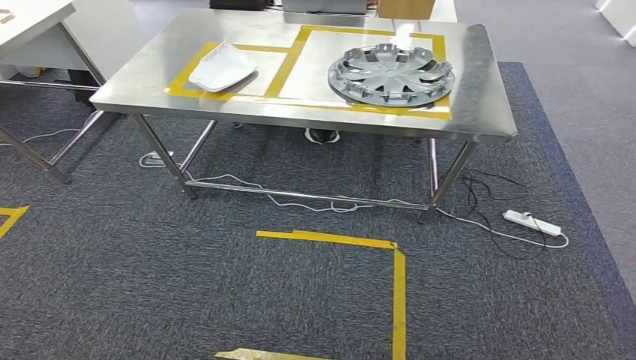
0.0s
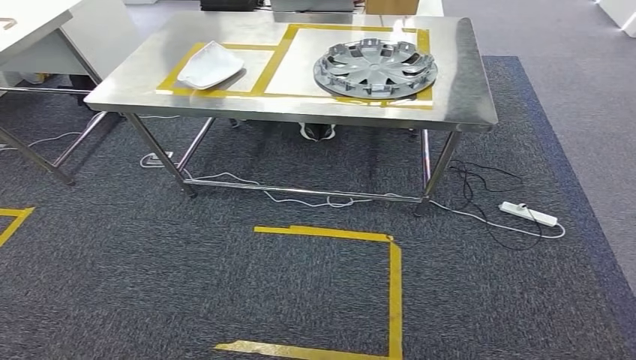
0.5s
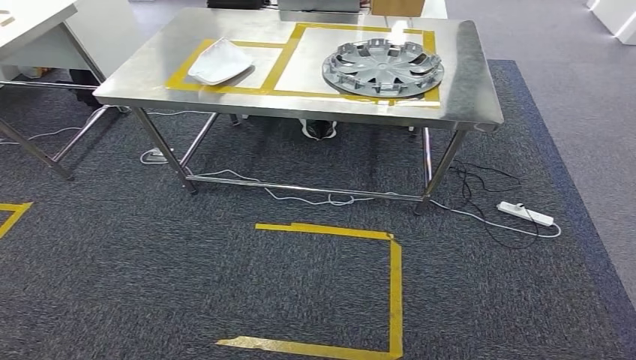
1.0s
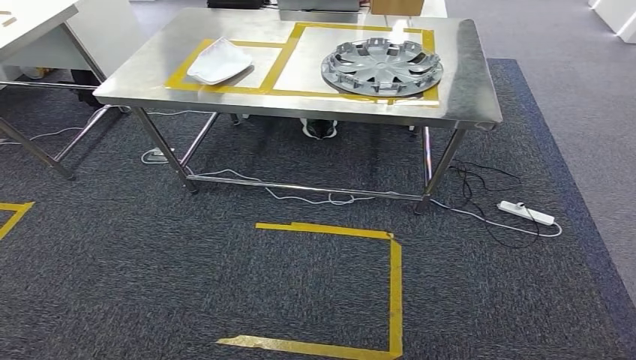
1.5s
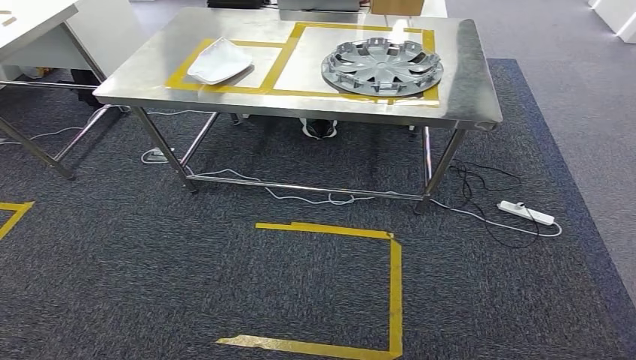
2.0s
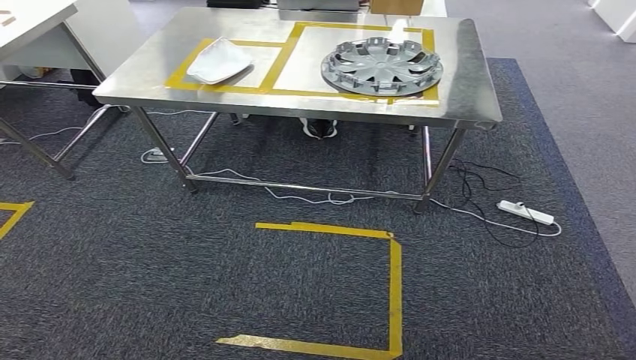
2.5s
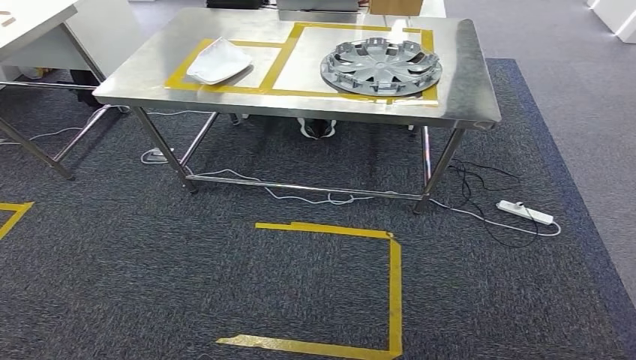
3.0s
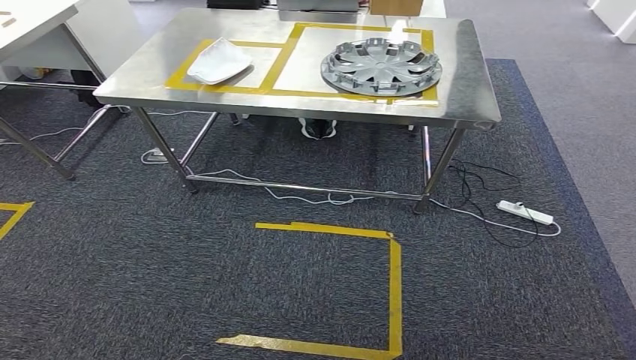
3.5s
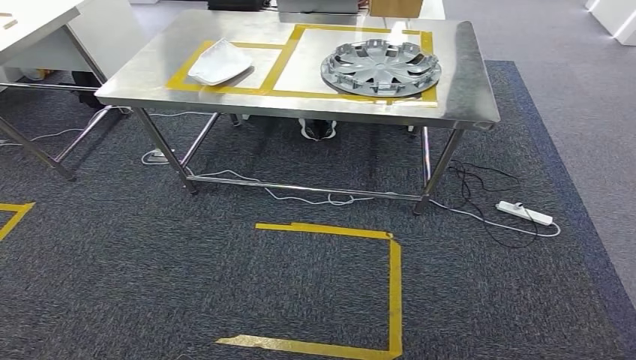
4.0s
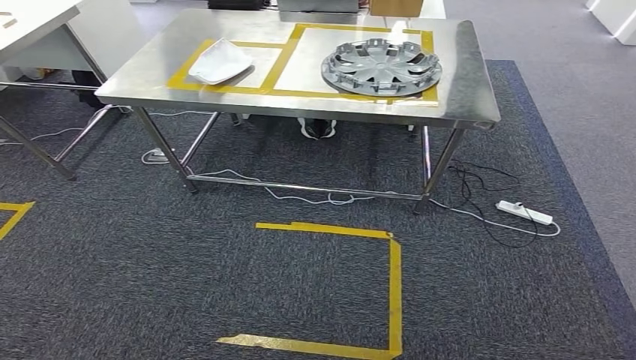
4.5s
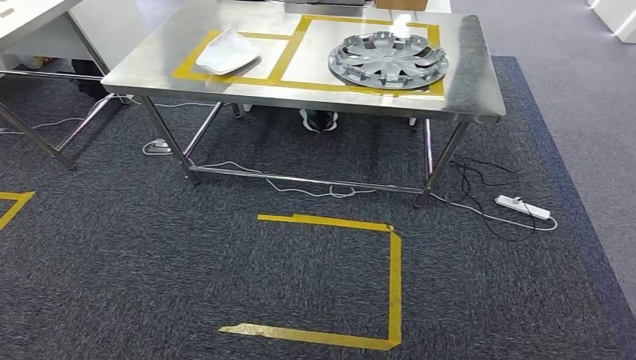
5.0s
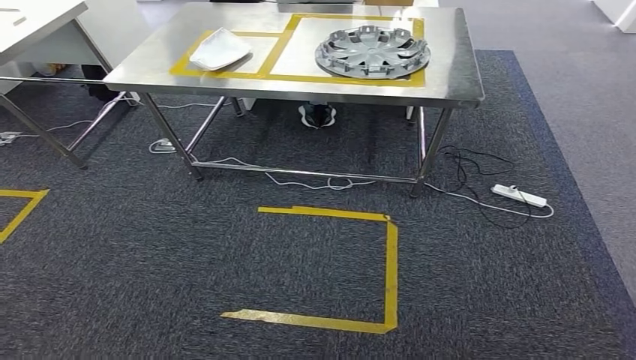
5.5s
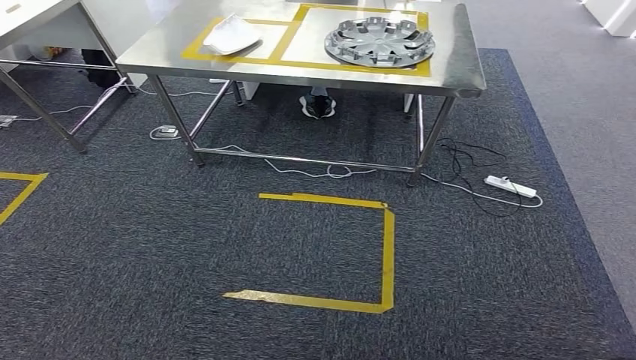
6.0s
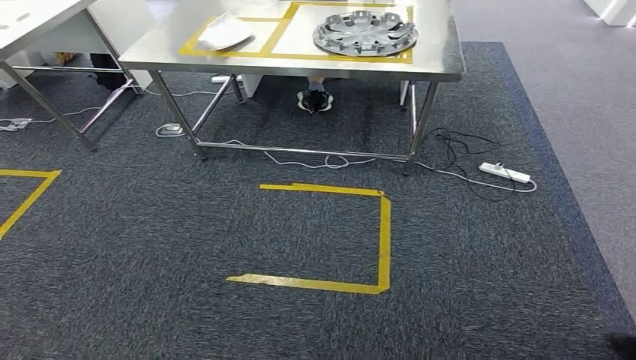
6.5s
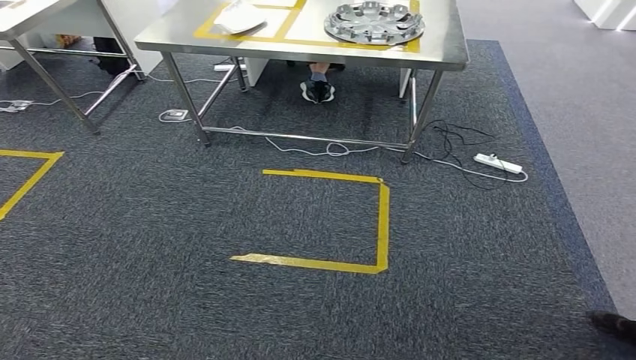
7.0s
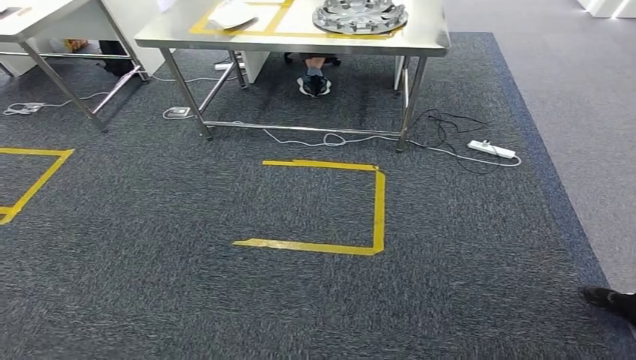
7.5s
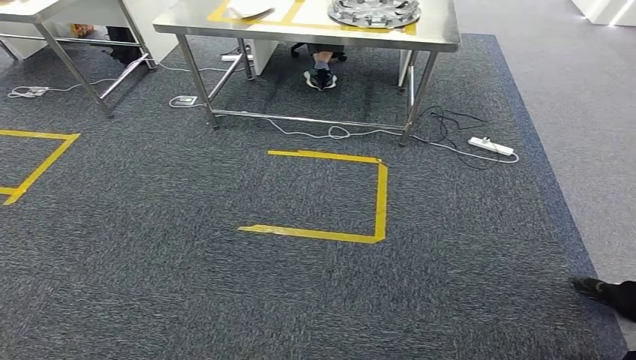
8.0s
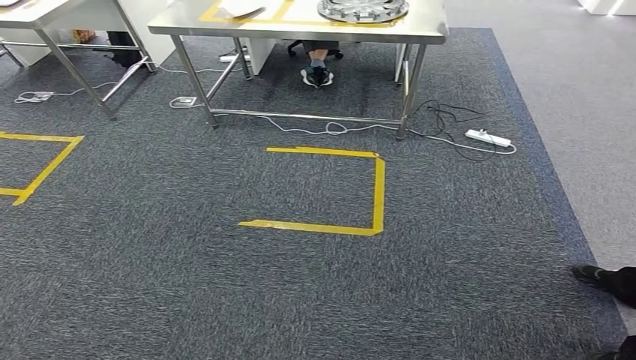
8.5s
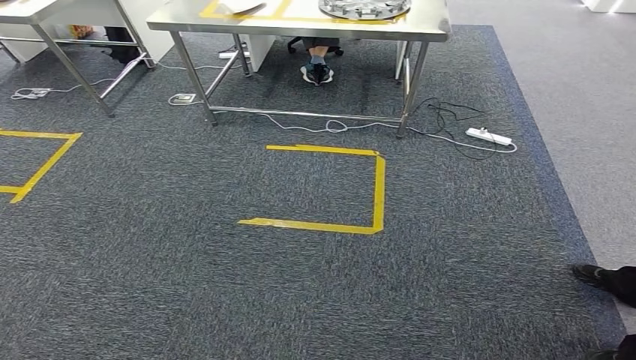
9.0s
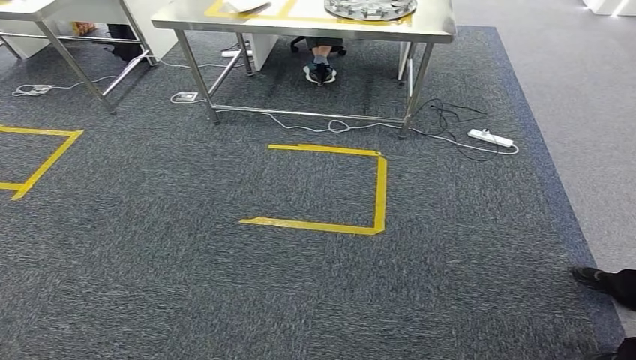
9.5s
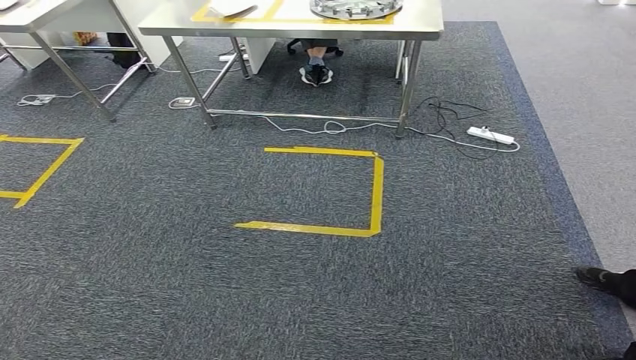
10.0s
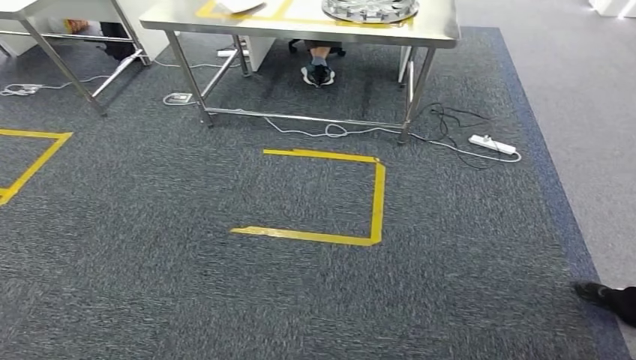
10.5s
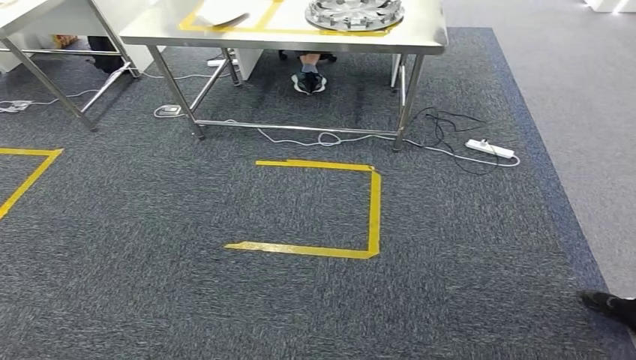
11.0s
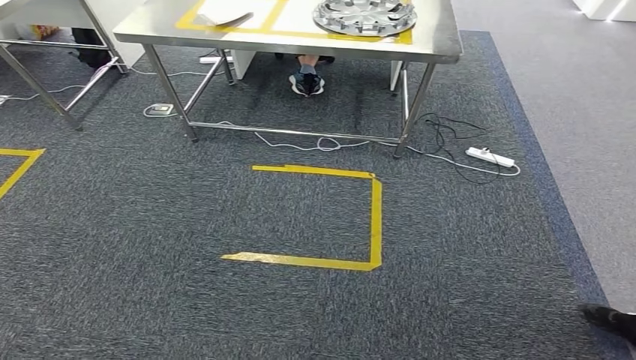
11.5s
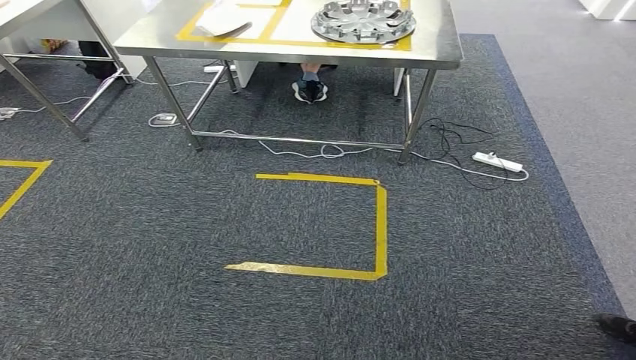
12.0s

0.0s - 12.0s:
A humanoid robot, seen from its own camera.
2.0s - 4.0s: The hands make only small movements.
8.0s - 10.0s: Both hands stay put.

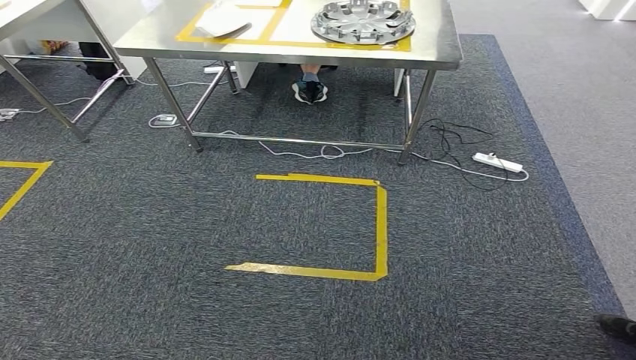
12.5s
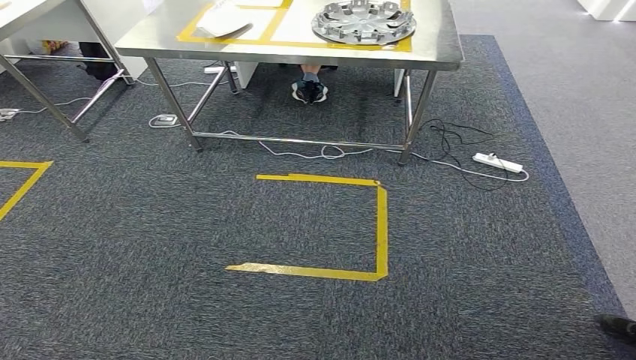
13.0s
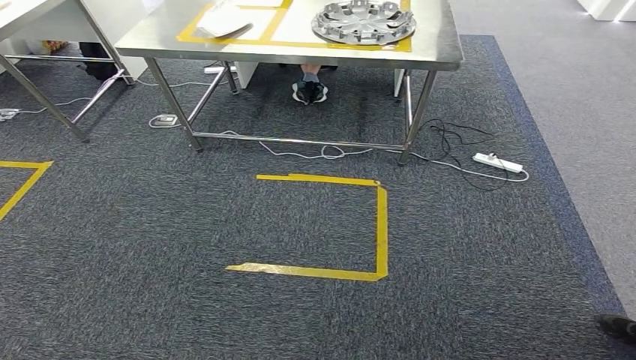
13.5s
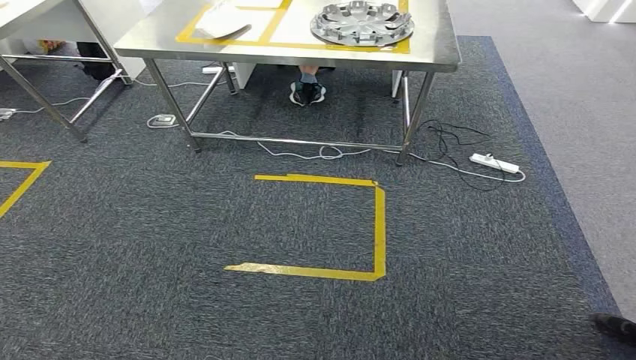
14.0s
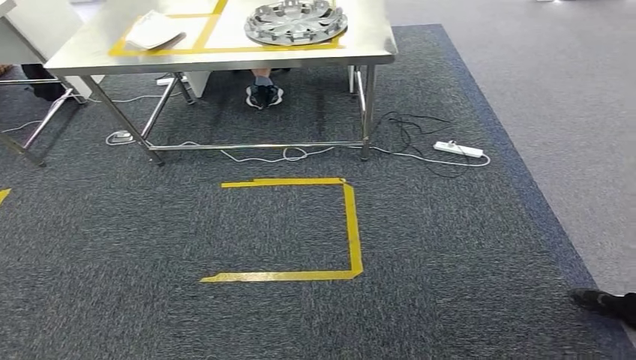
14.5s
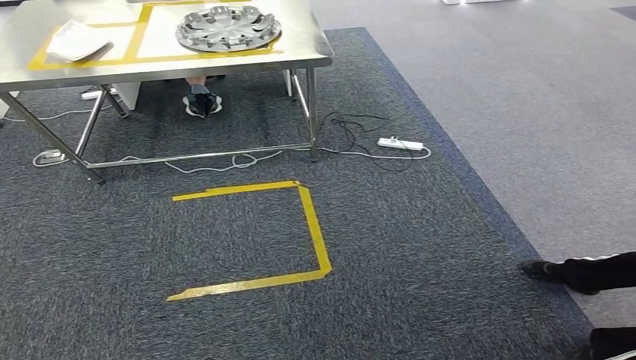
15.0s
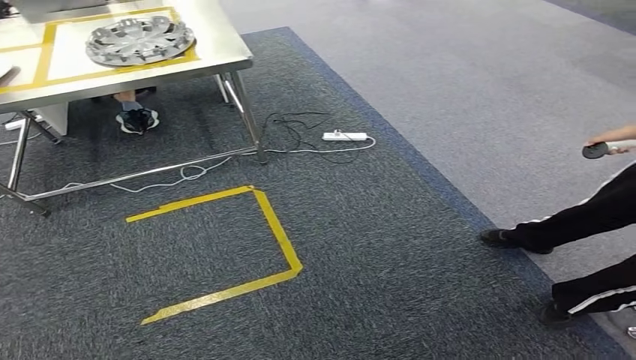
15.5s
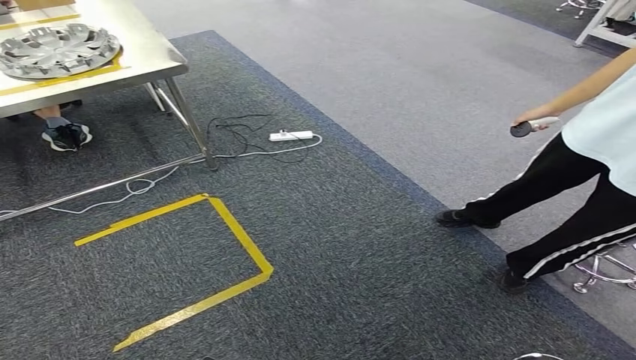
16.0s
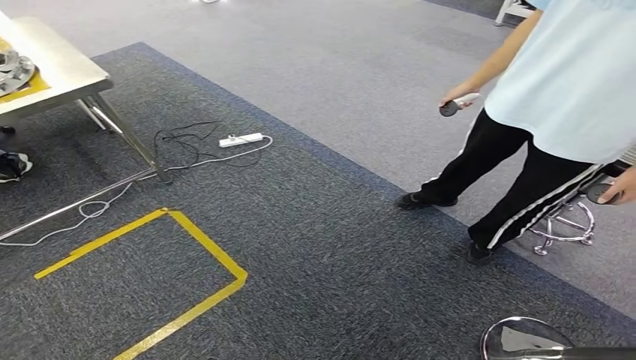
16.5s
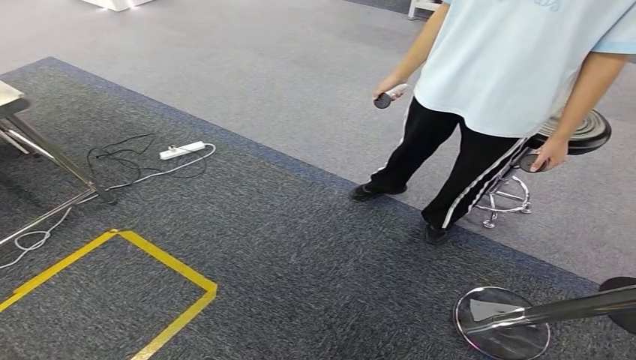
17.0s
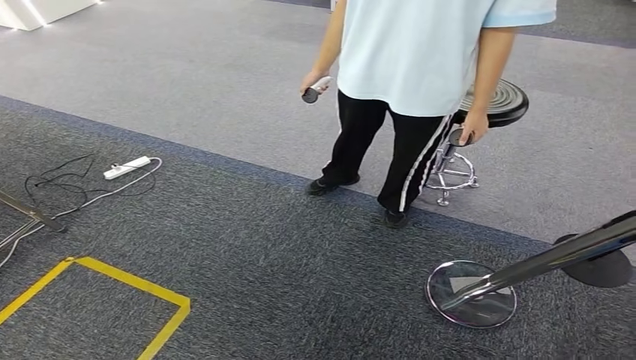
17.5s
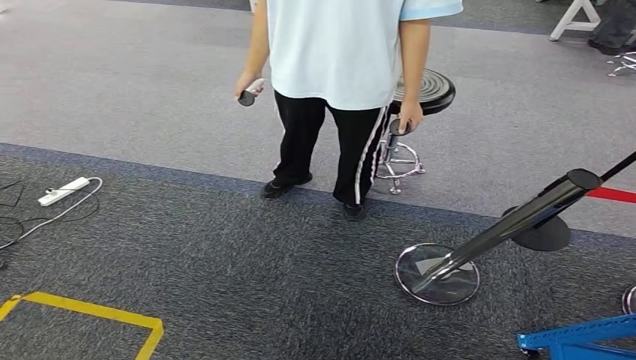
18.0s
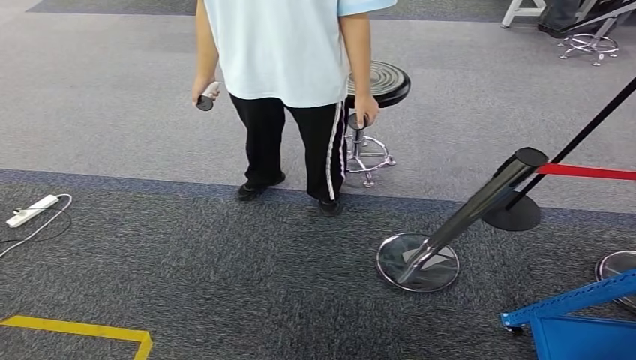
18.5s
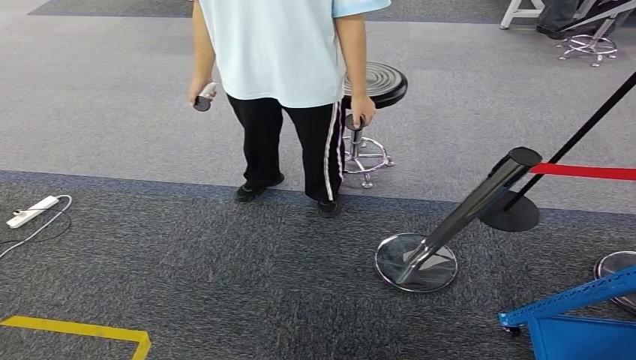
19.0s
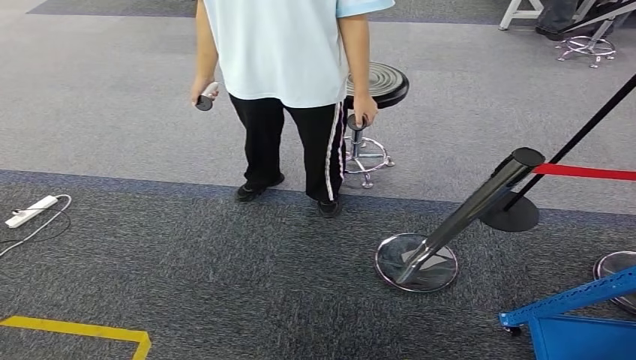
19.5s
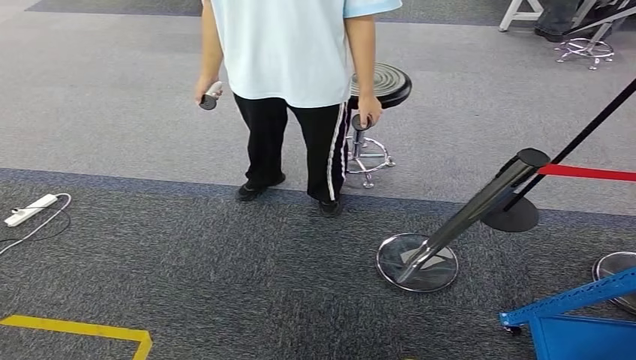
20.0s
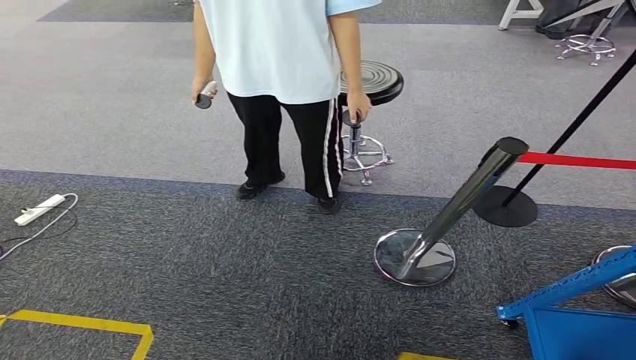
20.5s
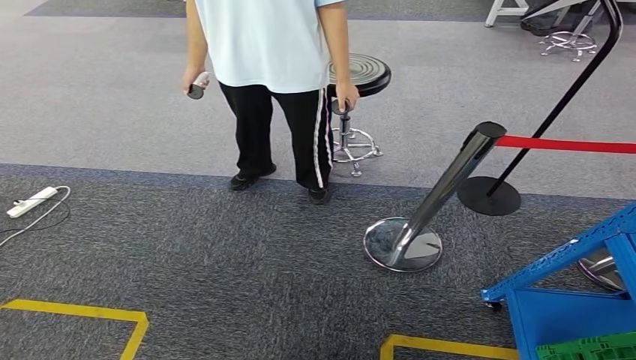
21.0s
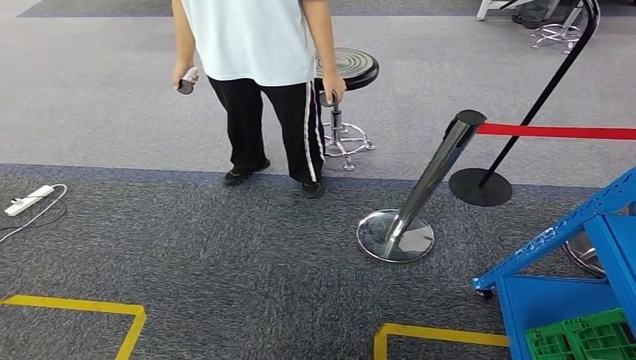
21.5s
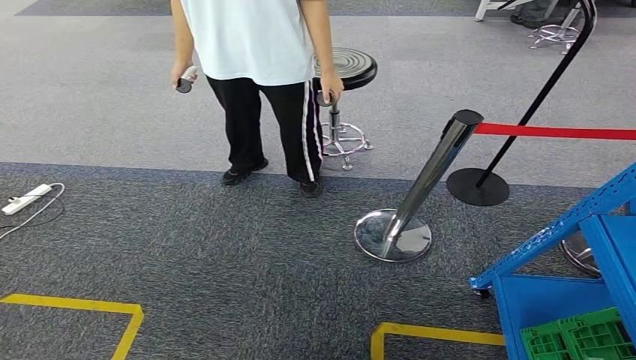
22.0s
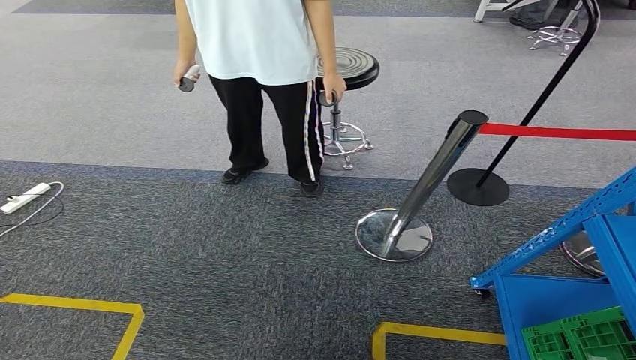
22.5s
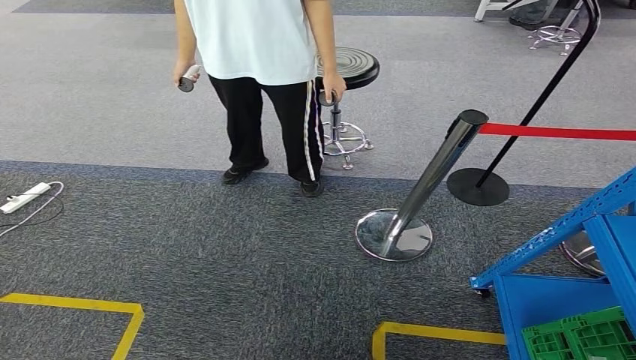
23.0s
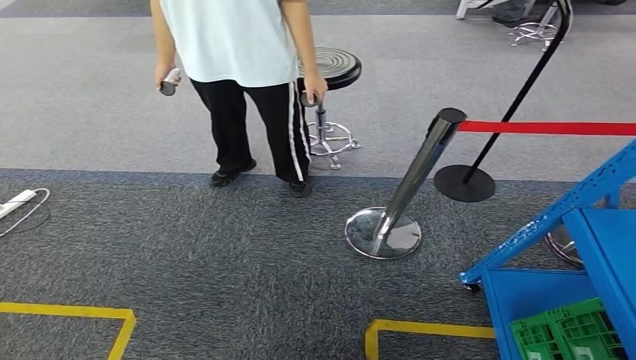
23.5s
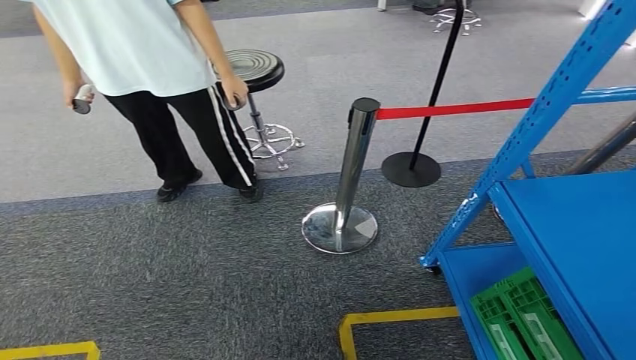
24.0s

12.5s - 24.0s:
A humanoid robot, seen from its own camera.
18.5s - 20.0s: The hands stay close to where they were, moving slightly.
